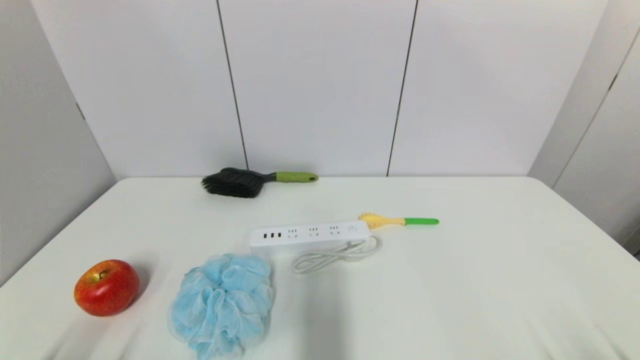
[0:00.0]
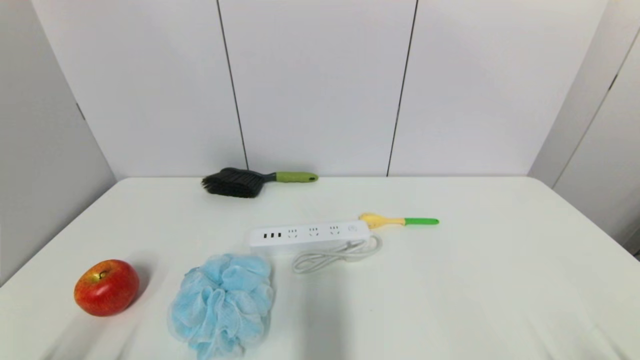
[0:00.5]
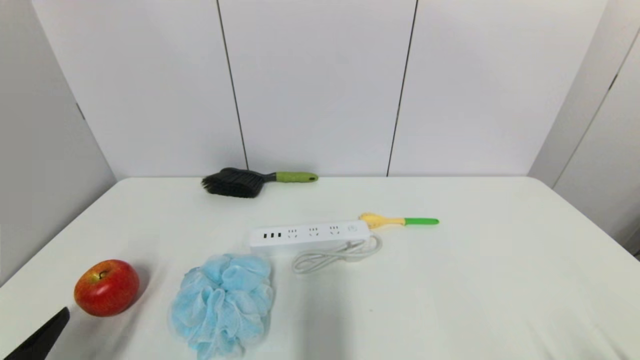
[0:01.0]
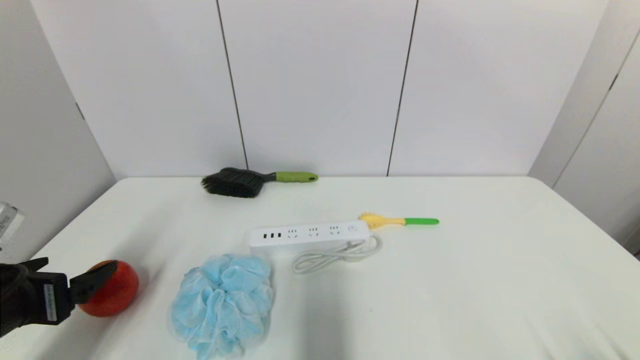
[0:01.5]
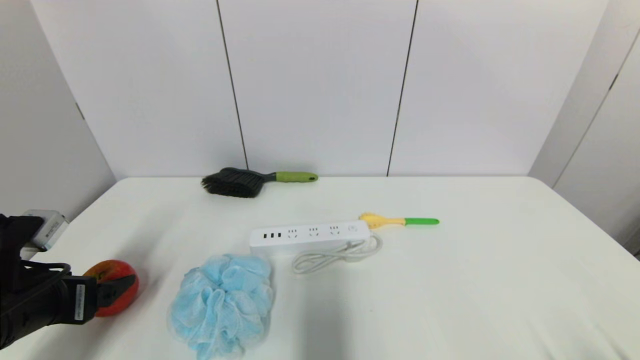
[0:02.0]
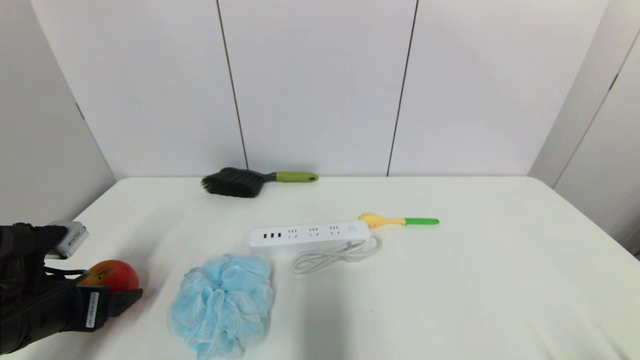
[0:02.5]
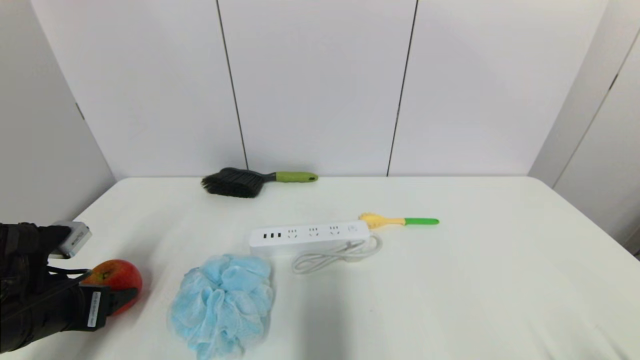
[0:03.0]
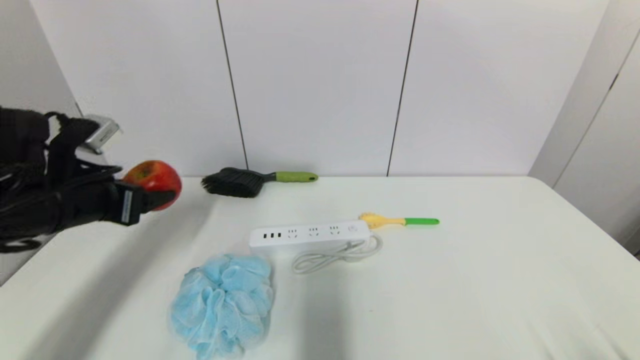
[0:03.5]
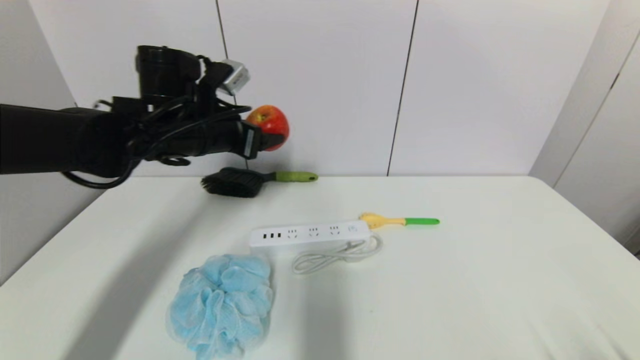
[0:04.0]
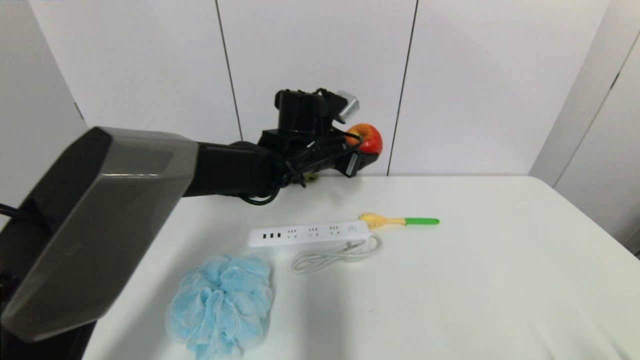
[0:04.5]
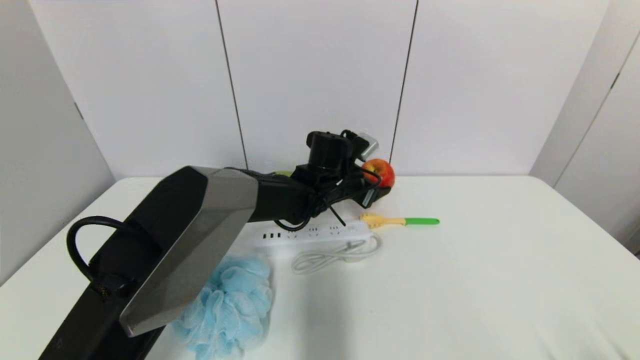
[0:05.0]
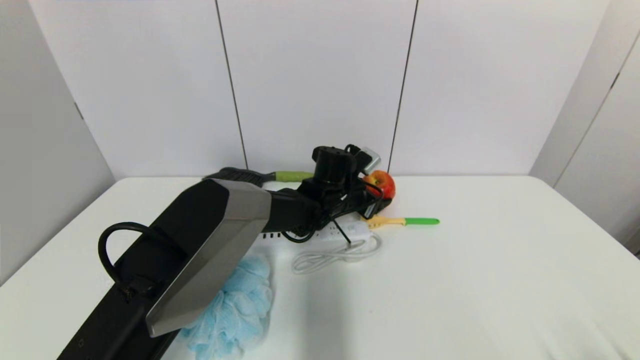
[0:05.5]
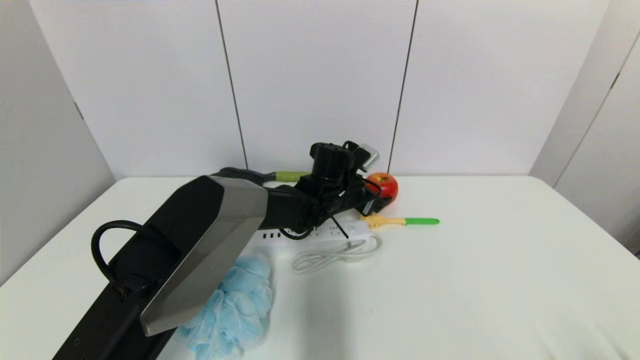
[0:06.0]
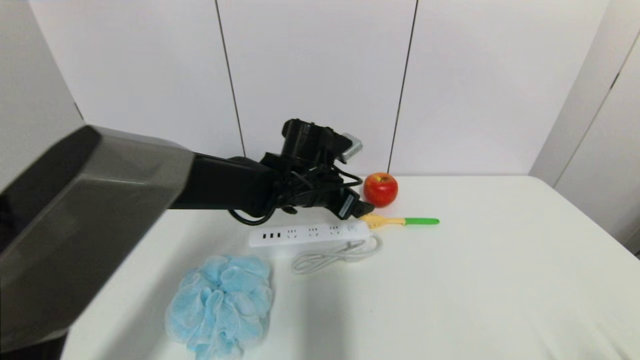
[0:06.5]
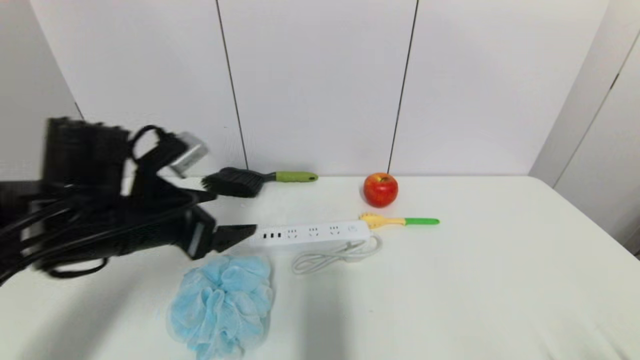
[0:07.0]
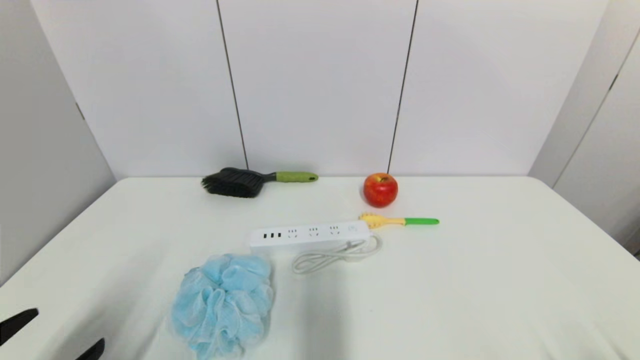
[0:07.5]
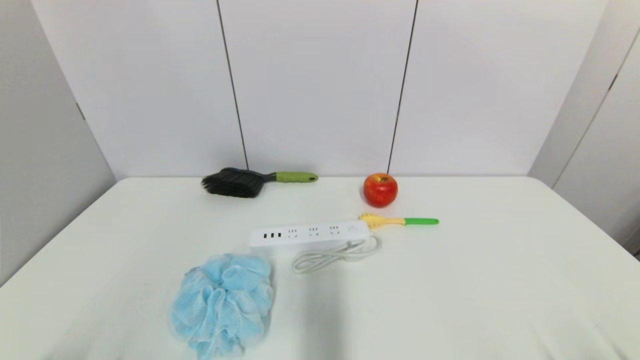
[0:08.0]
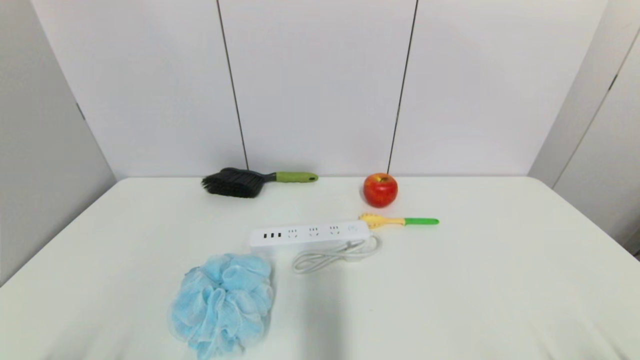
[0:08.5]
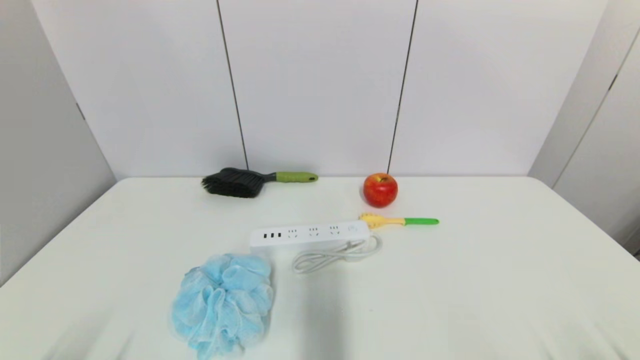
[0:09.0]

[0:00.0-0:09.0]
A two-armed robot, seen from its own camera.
Task of the whole recording: put the apple in the designated position.
Step, 0:01.0 to 0:02.5: Grasp the apple with left gripper.
Step, 0:03.5 to 0:06.5: Place the apple on the table with left gripper.
0:00.0 to 0:02.0: The left gripper moves forward and upward, roughly 20 cm.
0:02.0 to 0:04.5: The left gripper moves to the right and forward, approximately 40 cm, and closes its fingers.
0:04.5 to 0:07.0: The left gripper heads to the left and backward, covering approximately 25 cm, and opens up.
0:07.0 to 0:09.0: The left gripper travels backward and downward by roughly 25 cm.
